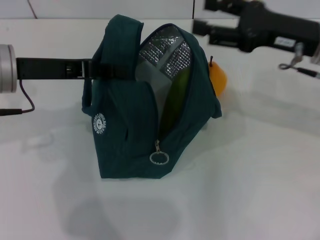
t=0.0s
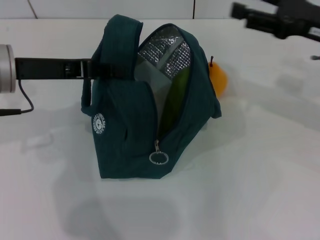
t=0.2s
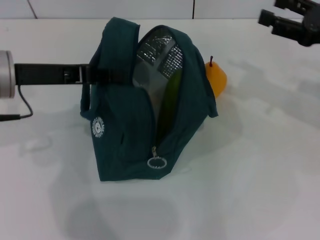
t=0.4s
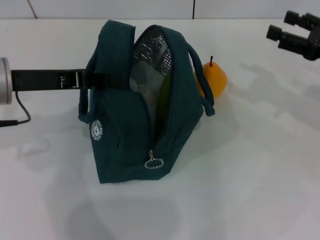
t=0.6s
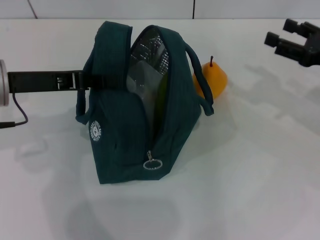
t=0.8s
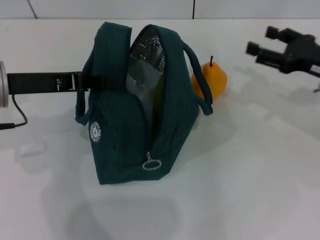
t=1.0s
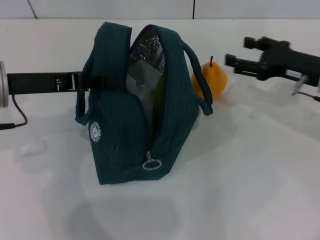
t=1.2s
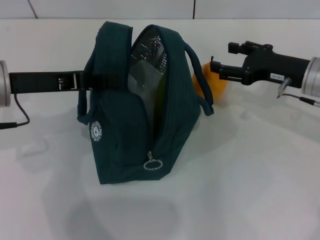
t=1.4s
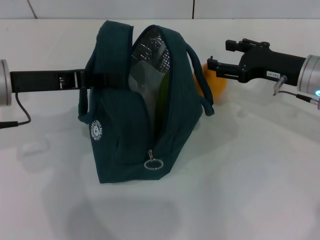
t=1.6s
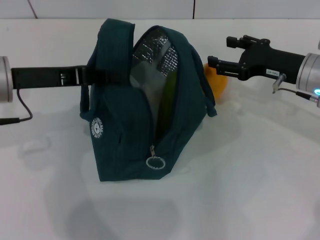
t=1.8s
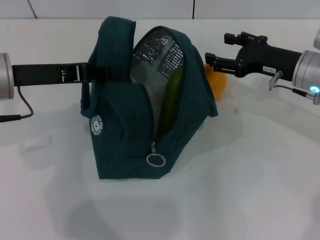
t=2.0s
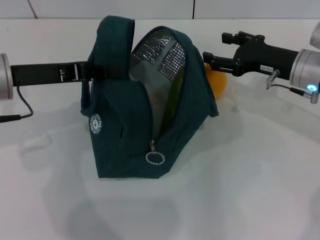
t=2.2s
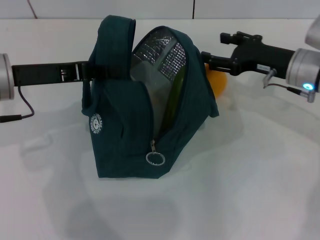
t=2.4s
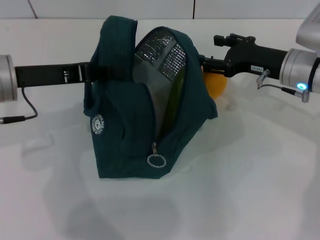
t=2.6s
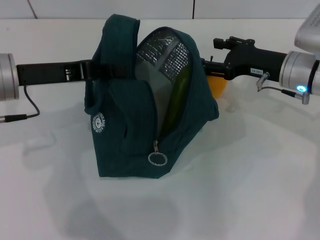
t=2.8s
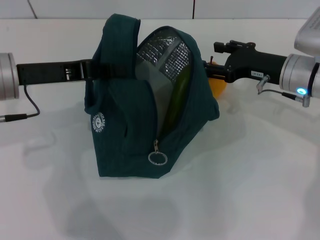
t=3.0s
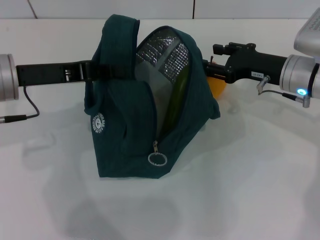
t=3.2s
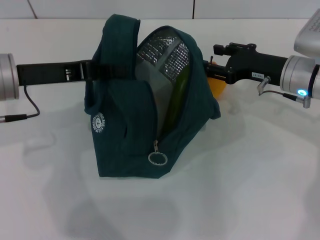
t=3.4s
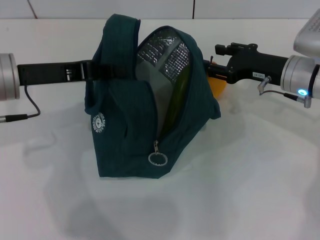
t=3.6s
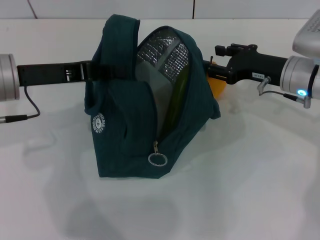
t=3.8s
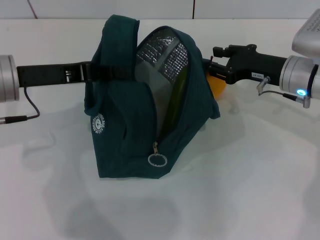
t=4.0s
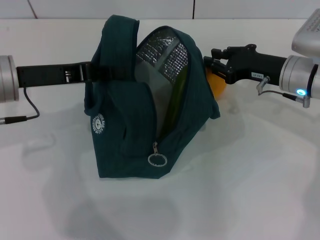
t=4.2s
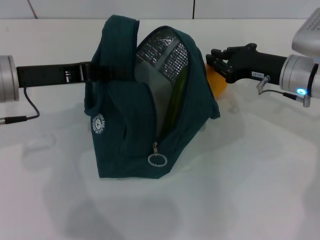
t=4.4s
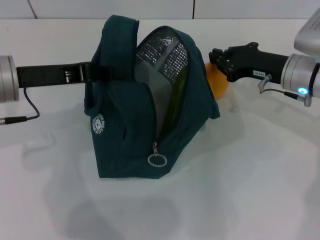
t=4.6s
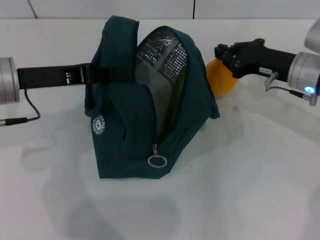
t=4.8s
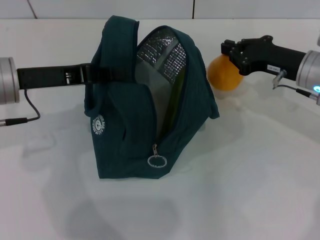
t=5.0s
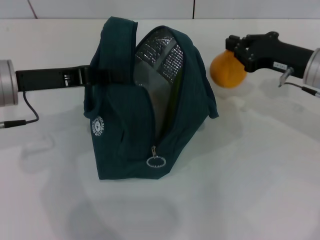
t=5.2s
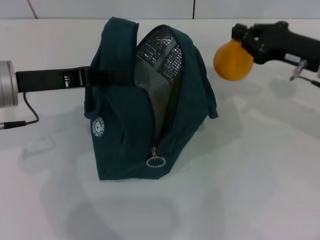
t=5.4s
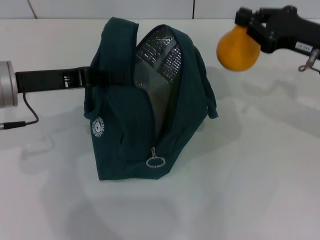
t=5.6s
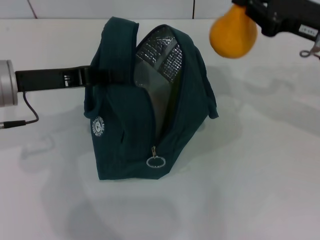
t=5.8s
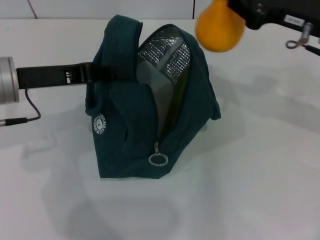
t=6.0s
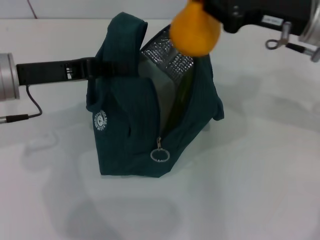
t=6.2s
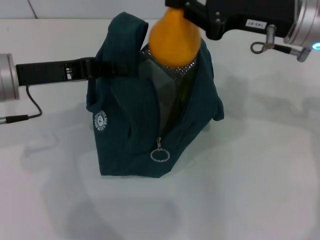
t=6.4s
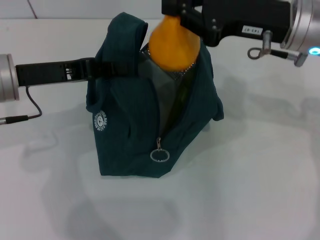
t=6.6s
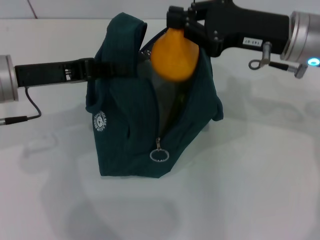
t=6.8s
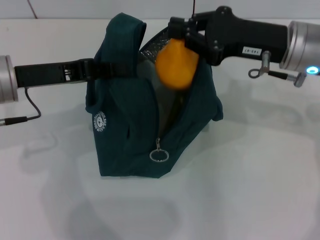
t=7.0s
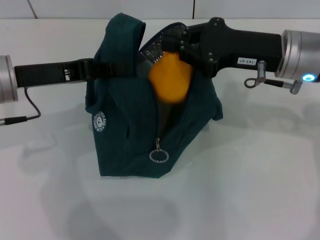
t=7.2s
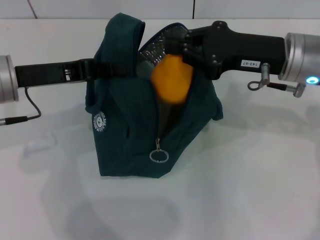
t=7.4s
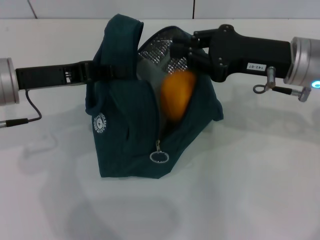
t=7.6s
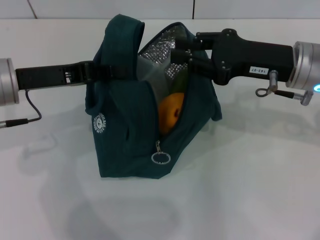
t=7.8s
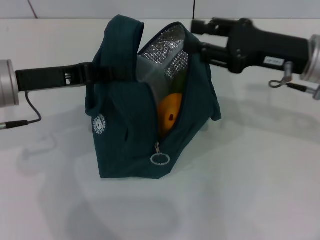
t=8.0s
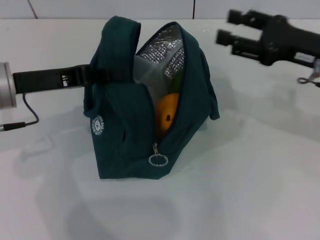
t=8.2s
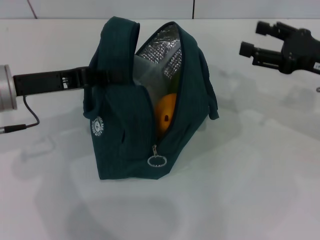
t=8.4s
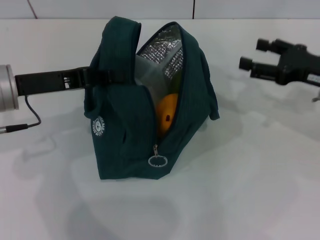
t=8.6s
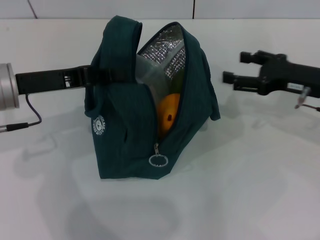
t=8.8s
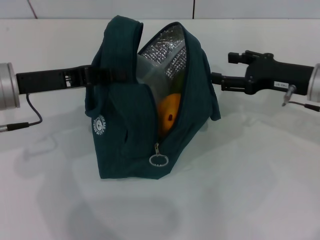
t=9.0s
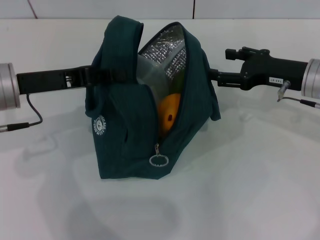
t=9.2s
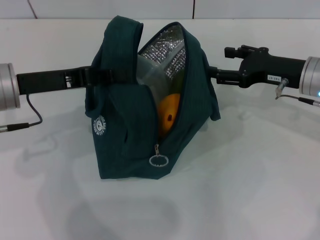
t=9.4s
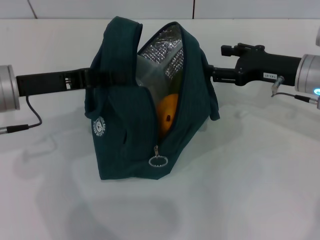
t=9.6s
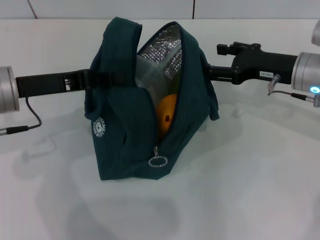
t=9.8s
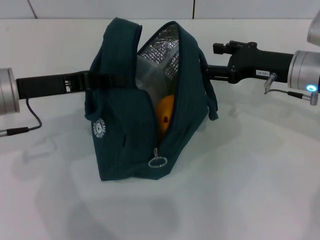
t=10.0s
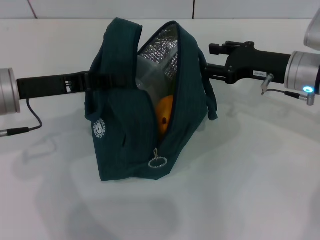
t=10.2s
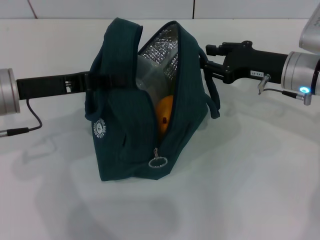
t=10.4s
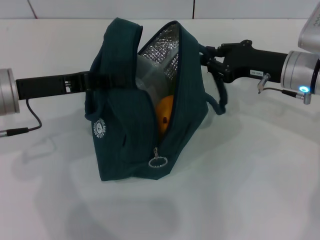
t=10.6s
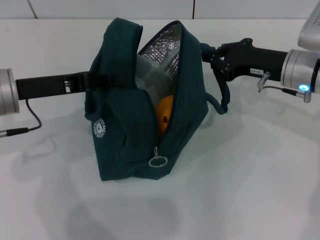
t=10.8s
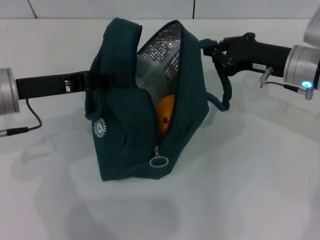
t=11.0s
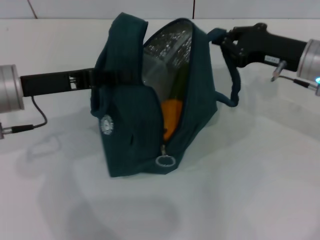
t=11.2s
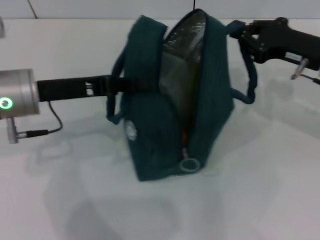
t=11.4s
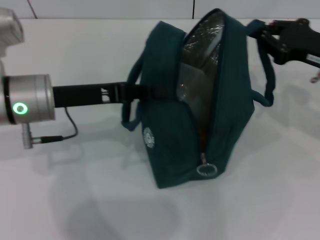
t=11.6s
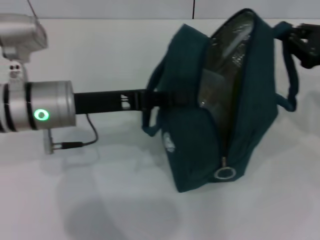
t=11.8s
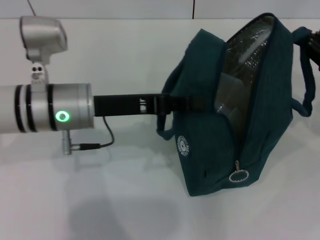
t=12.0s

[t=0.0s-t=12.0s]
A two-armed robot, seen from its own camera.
Step, t=0.0s to t=4.4s: Grab the pear with your right hand.
t=0.0s to t=1.6s: The right gripper moves downward, some 5 cm, and goes to the right and returns, approximately 10 cm each way.
t=1.6s to t=3.0s: The grippers stay close to where they were, moving slightly.
t=3.0s to t=4.4s: The right gripper closes.
t=4.4s to t=6.0s: The right gripper shifts about 10 cm upward.
t=6.0s to t=7.6s: The right gripper shifts by approximately 5 cm.
t=7.6s to t=9.0s: The right gripper travels downward and to the right by some 10 cm, and opens up.
t=9.0s to t=10.4s: The grippers make only small movements.
t=10.4s to t=12.0s: The right gripper goes approximately 15 cm to the right and backward, and closes, while the left gripper shifts about 10 cm to the right.

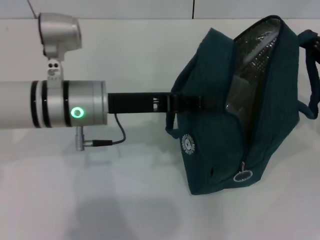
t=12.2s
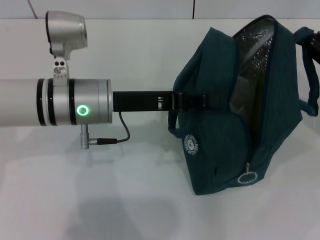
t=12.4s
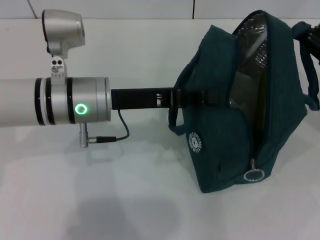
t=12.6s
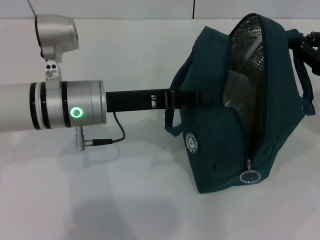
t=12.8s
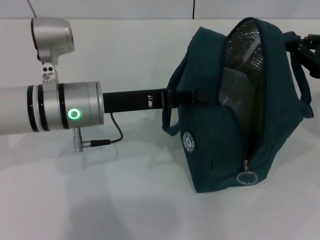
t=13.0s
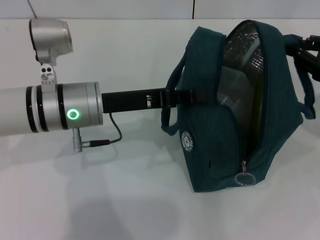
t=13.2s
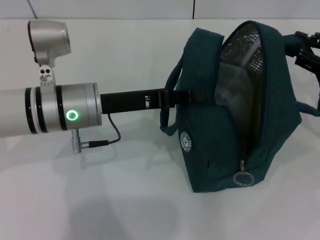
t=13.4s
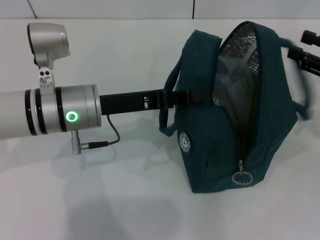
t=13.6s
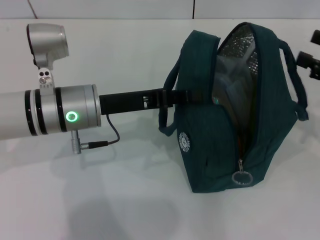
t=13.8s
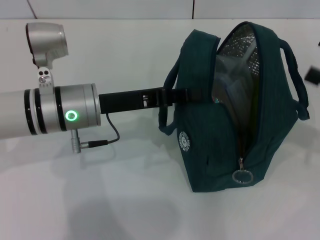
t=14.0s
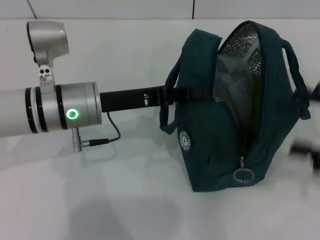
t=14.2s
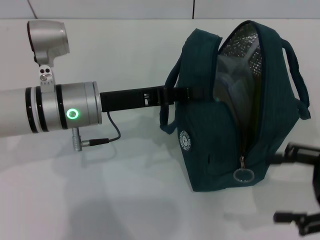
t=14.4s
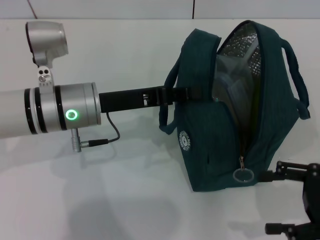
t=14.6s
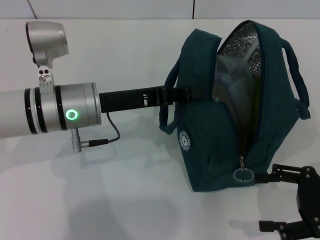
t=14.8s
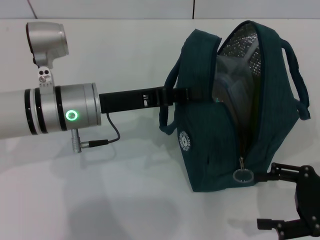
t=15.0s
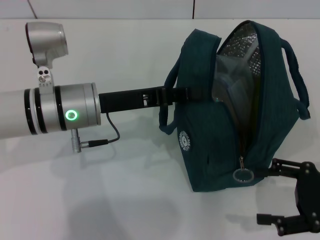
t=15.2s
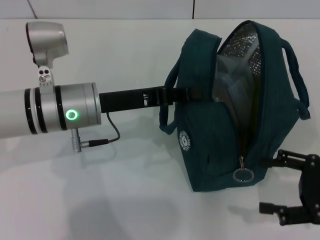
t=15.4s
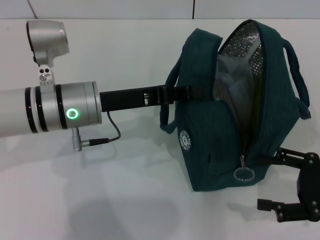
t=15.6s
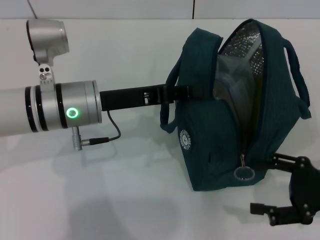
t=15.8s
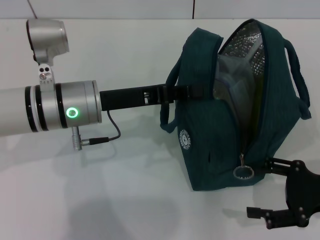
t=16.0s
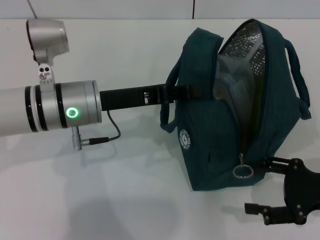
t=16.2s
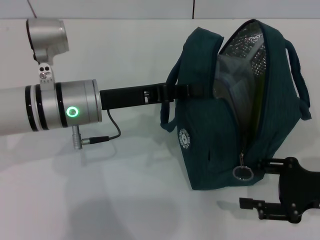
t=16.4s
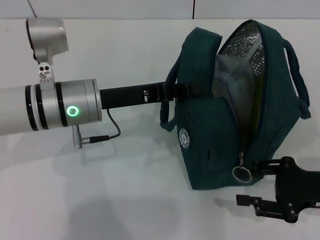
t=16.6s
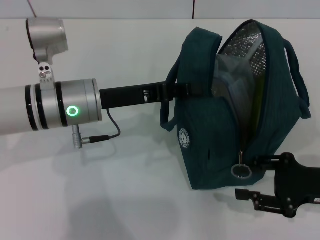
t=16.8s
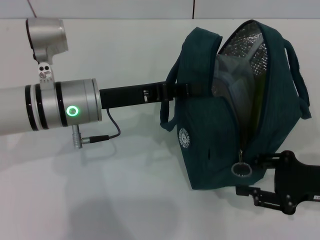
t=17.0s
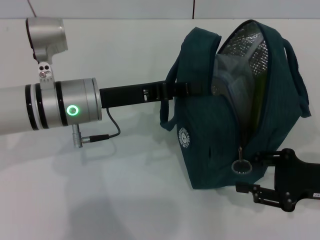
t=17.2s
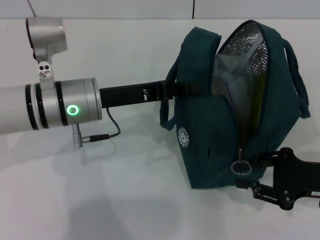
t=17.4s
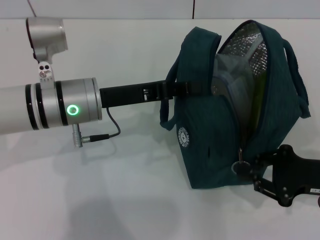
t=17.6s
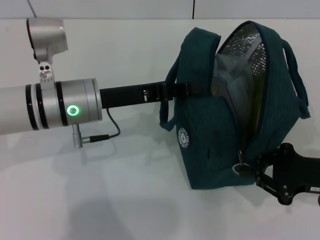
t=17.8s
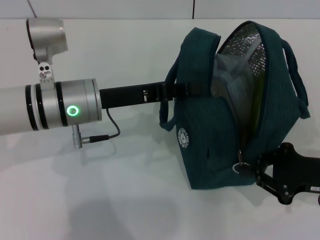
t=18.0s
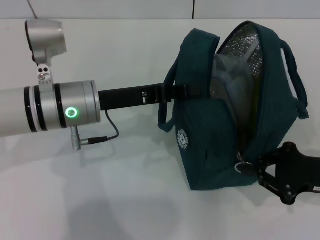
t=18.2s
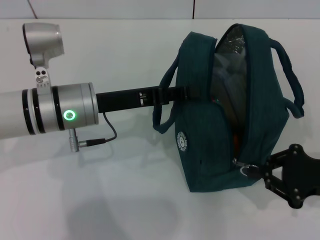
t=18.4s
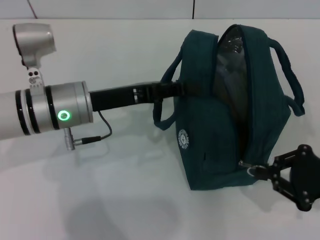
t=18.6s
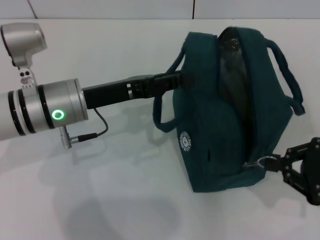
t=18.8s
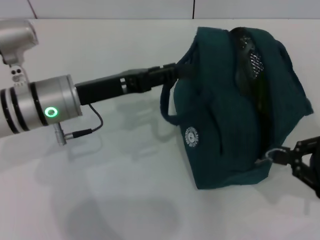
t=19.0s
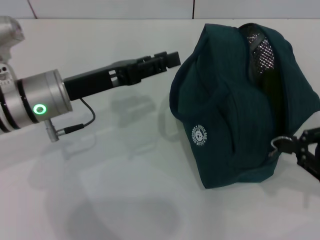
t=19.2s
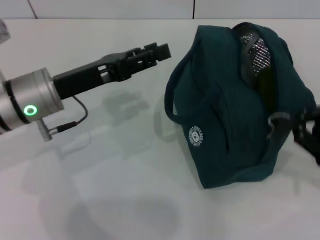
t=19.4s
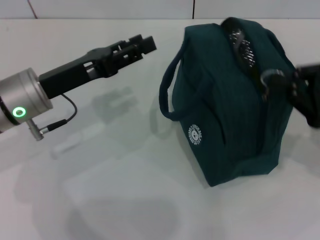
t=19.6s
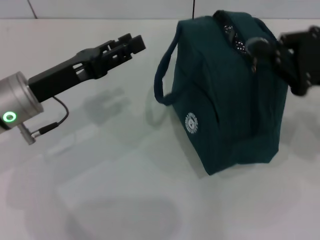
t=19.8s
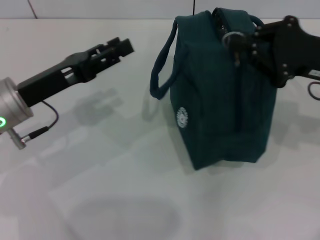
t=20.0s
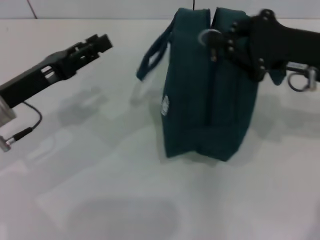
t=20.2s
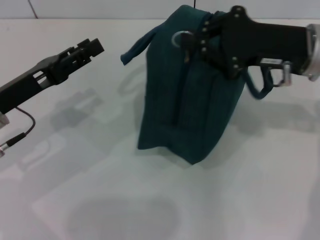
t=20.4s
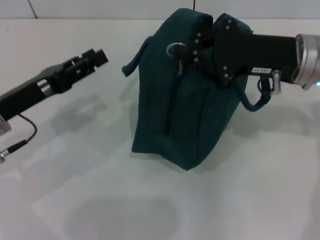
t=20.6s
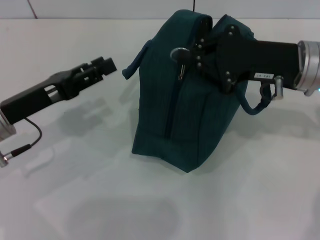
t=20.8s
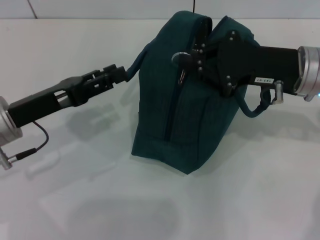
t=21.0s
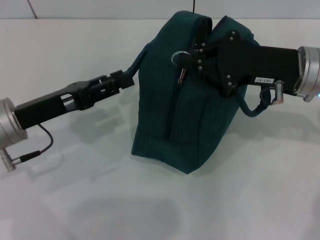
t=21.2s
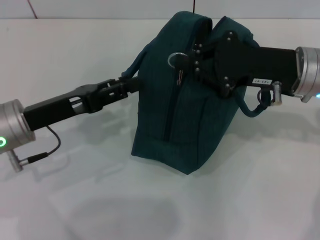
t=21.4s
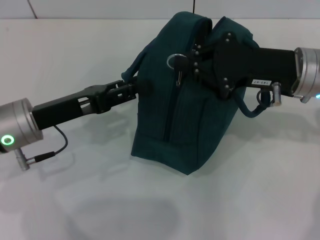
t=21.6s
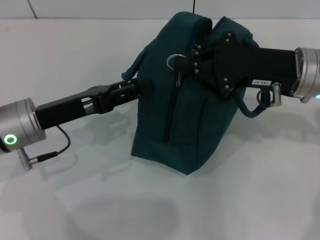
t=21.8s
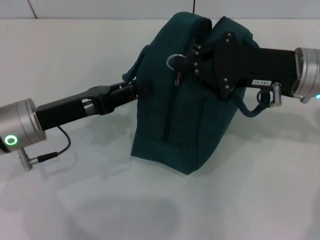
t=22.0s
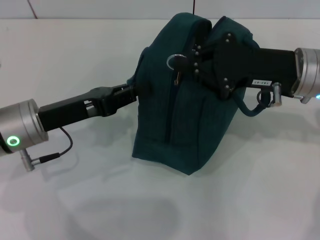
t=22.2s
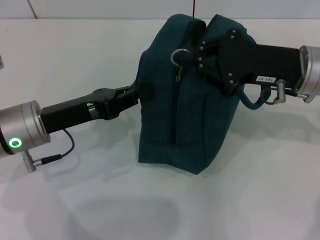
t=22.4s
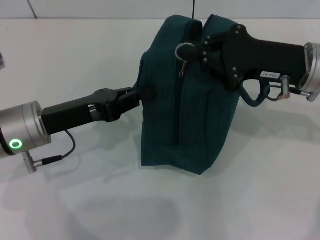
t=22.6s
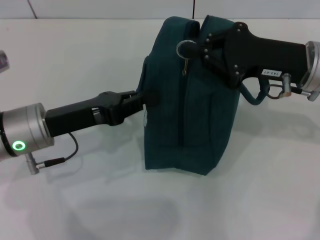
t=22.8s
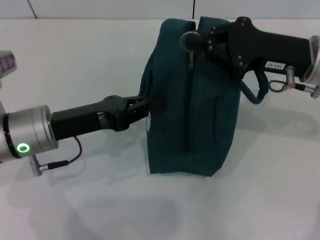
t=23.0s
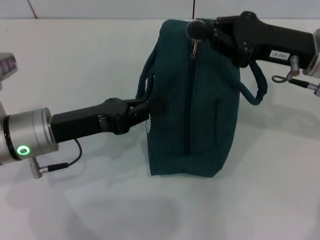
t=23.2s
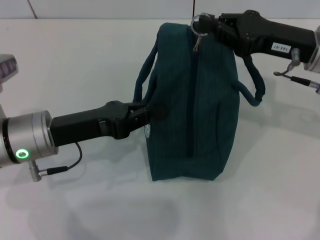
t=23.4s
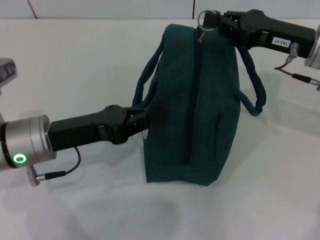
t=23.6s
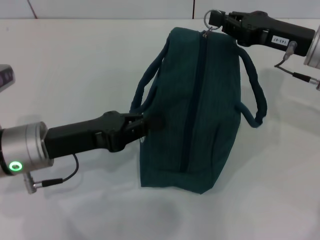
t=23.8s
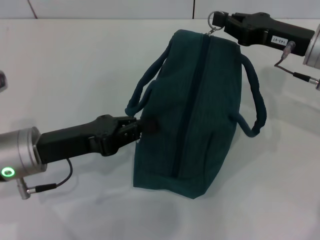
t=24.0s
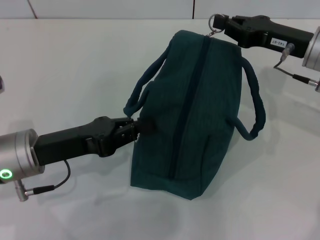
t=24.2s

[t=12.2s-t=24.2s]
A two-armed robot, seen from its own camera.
t=12.2s to t=13.8s: The right gripper opens up.
t=13.8s to t=15.2s: The right gripper travels backward and downward by some 10 cm, and opens up.
t=15.2s to t=16.6s: The grippers stay close to where they were, moving slightly.
t=16.6s to t=18.2s: The right gripper closes.
t=18.2s to t=19.8s: The right gripper moves upward and forward, roughly 10 cm; the left gripper shifts about 5 cm to the left, and opens its fingers.
t=19.8s to t=21.2s: The right gripper travels to the left by about 10 cm.
t=21.2s to t=22.6s: The left gripper closes up.
